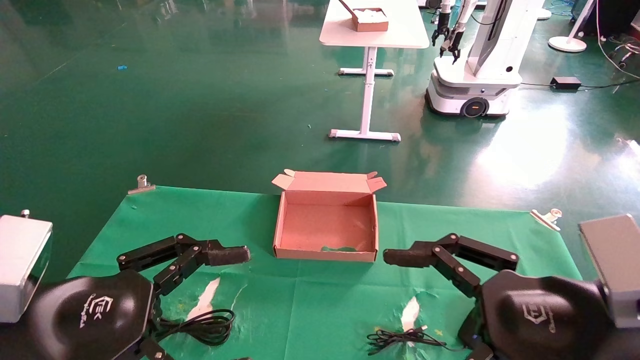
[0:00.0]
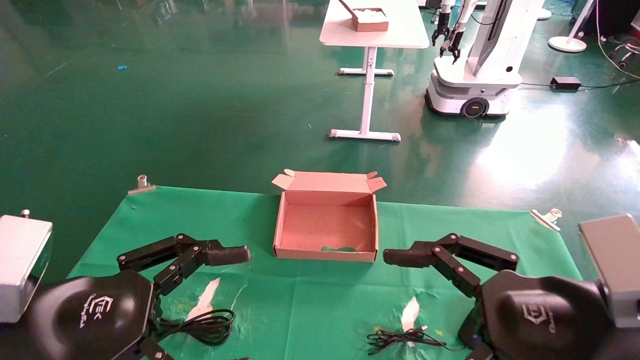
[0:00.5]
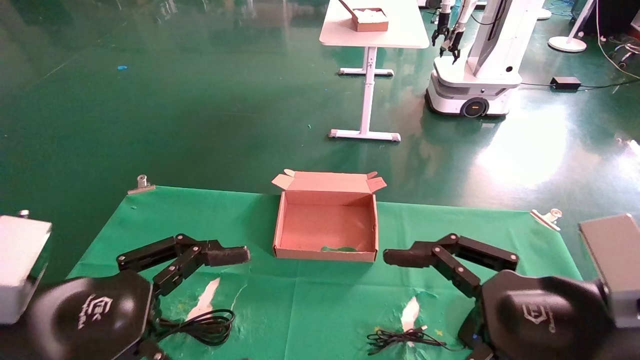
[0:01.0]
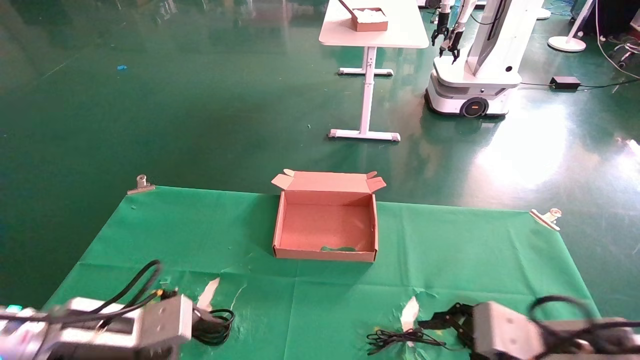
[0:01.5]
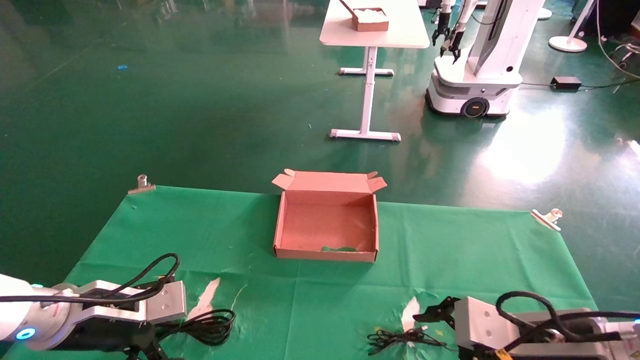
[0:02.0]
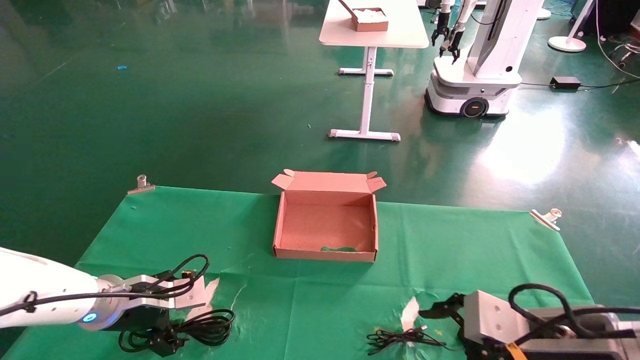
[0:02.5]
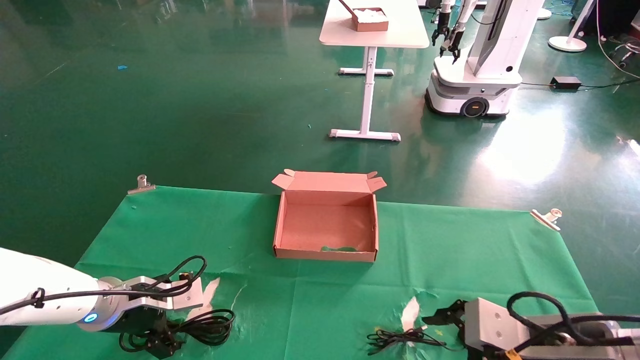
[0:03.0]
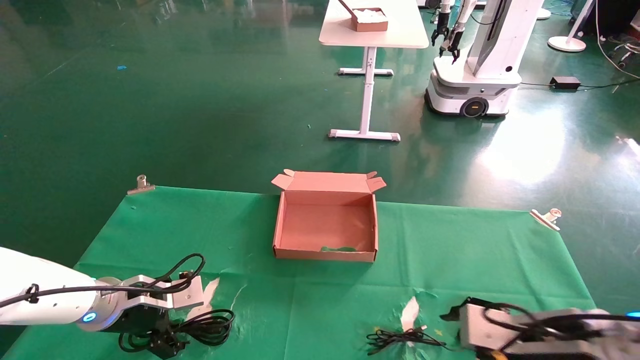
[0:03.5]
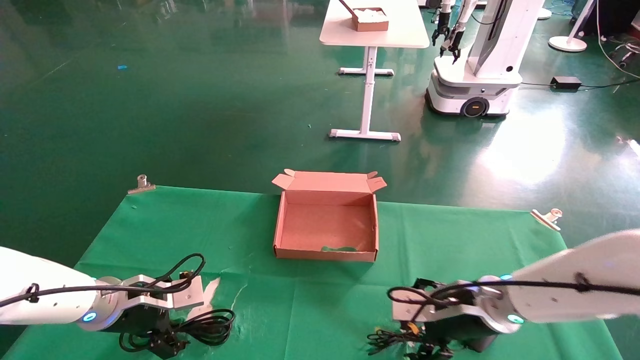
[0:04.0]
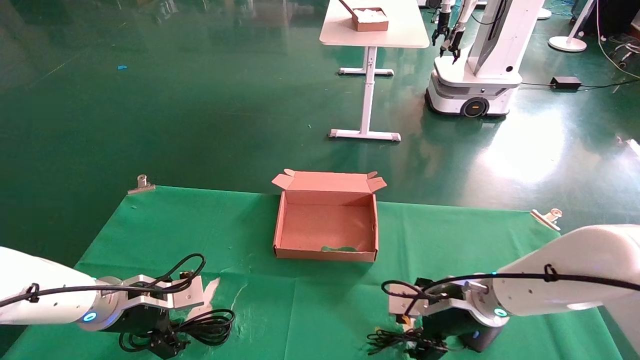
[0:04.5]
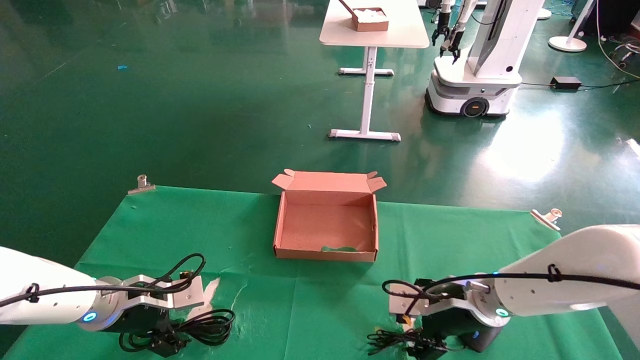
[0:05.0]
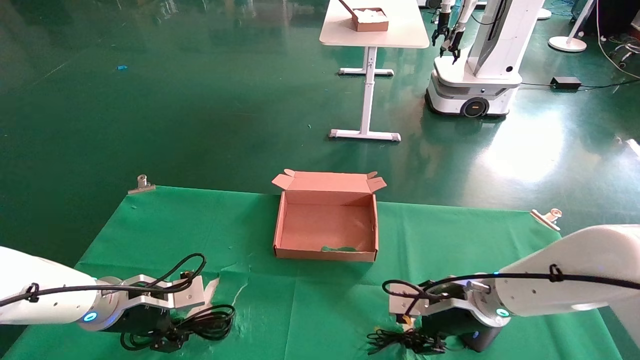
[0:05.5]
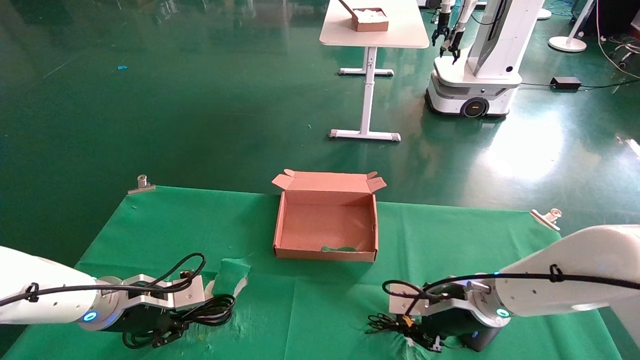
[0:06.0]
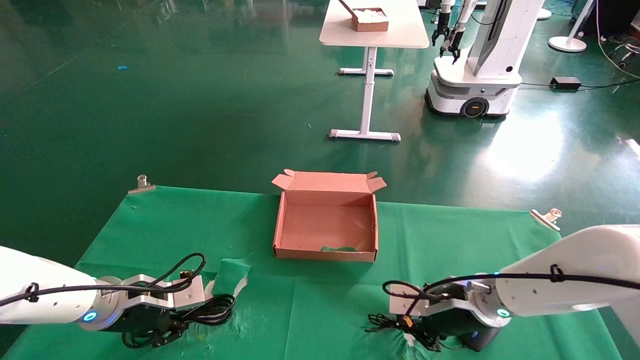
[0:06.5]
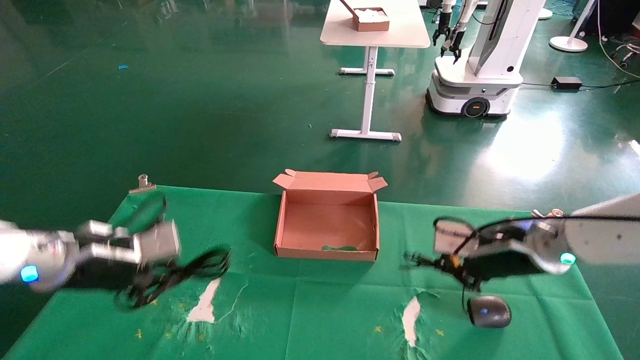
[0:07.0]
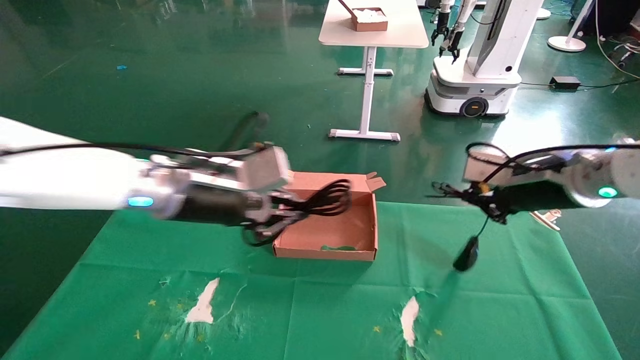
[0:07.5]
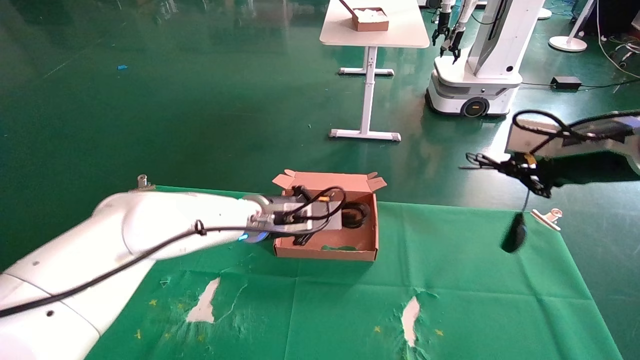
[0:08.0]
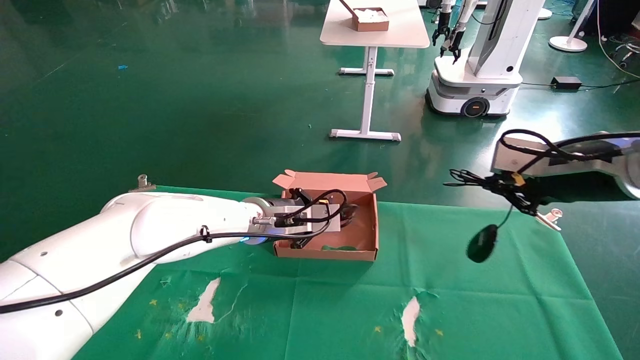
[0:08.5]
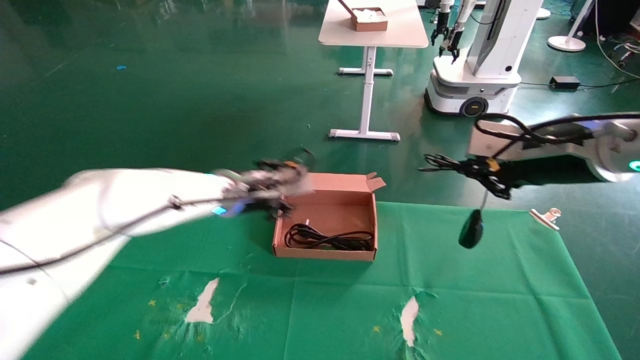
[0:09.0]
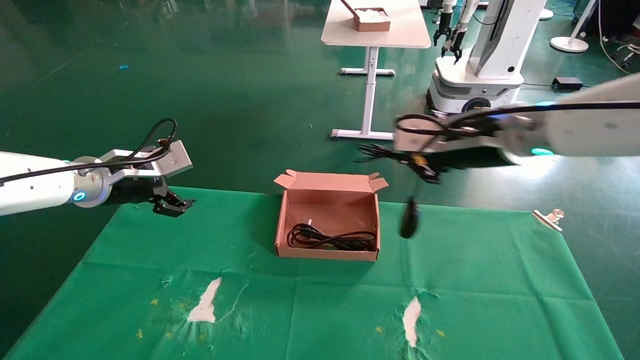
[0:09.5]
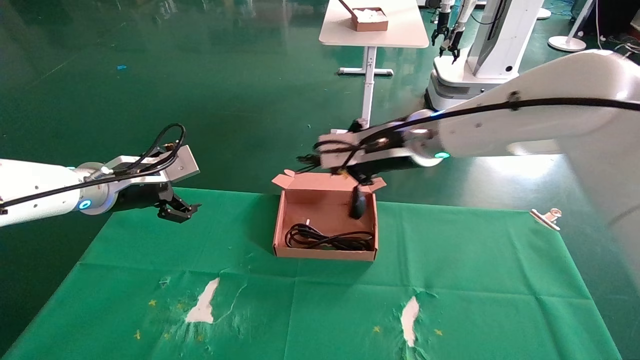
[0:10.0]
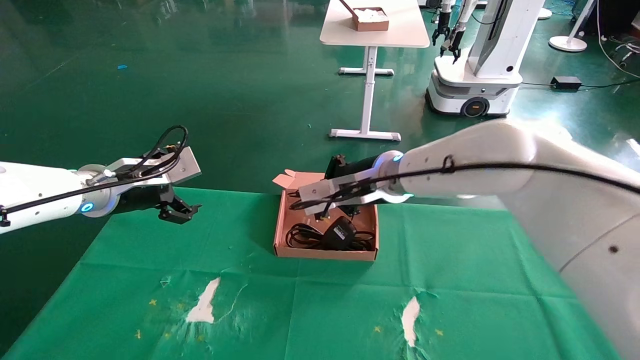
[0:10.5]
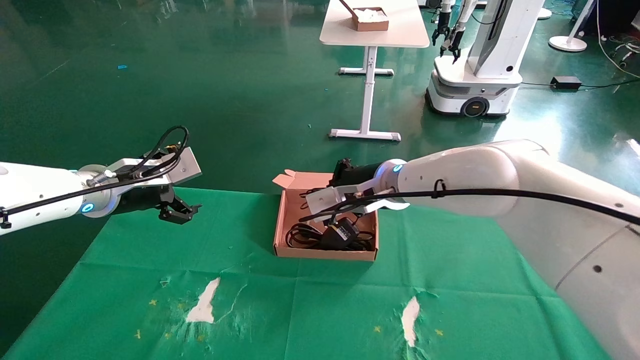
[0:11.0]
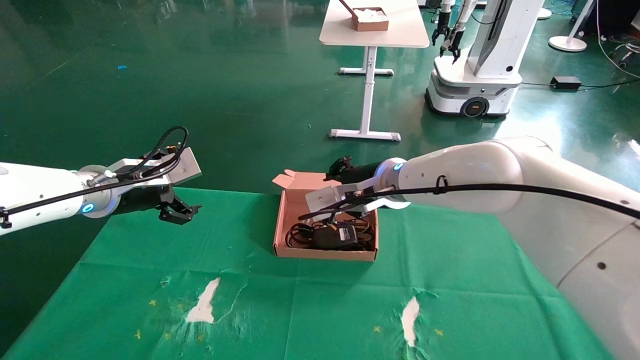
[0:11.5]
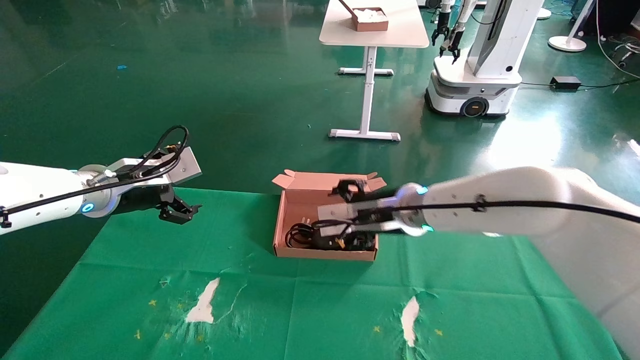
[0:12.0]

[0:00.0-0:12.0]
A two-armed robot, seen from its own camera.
Step, 0:01.5 to 0:07.0: Grab and lift both the mouse and power cord from the accessory packaging area at the same time.
0:00.0 to 0:02.0: The right gripper moves downward and forward, some 10 cm, while the left gripper moves forward and downward, some 15 cm.
0:02.0 to 0:04.0: The right gripper moves forward and to the left, some 15 cm. Meanwhile the left gripper moves forward, some 5 cm.
0:04.0 to 0:06.0: The left gripper closes up; the right gripper closes up.
0:06.0 to 0:08.0: The left gripper shifts about 25 cm to the right and upward. Meanwhile the right gripper heads upward and to the right, covering roughly 25 cm.
0:08.0 to 0:10.0: Both grippers travel together to the left, some 20 cm. The left gripper opens up.
0:10.0 to 0:12.0: The right gripper moves downward, some 10 cm, and opens.

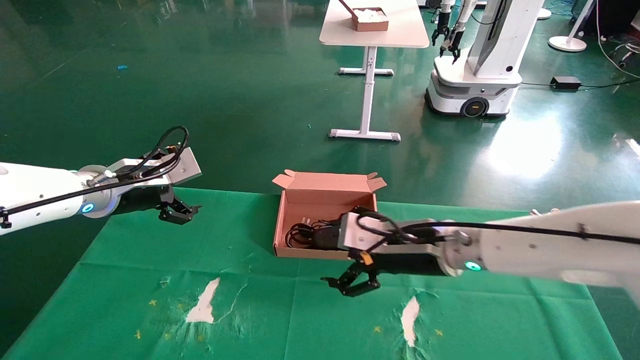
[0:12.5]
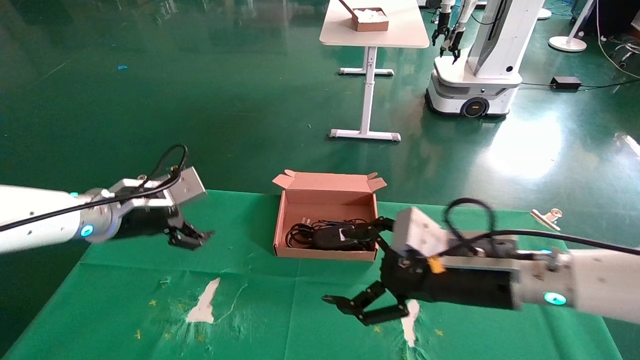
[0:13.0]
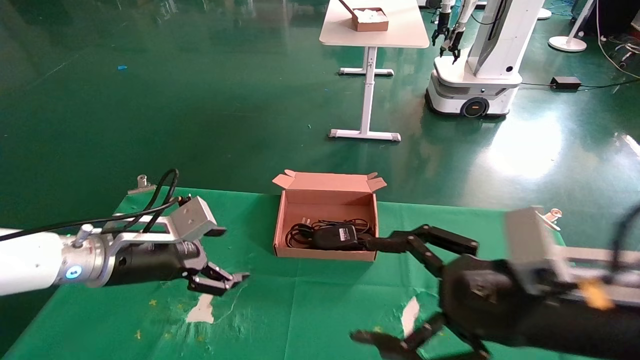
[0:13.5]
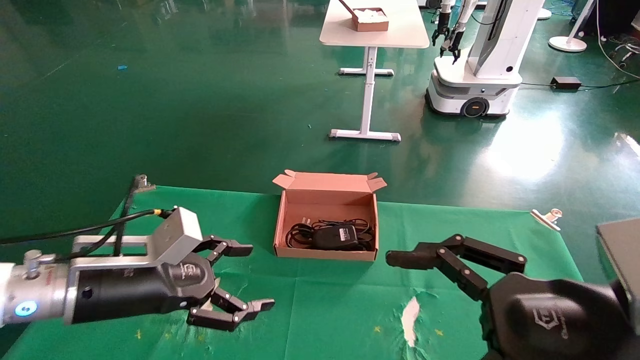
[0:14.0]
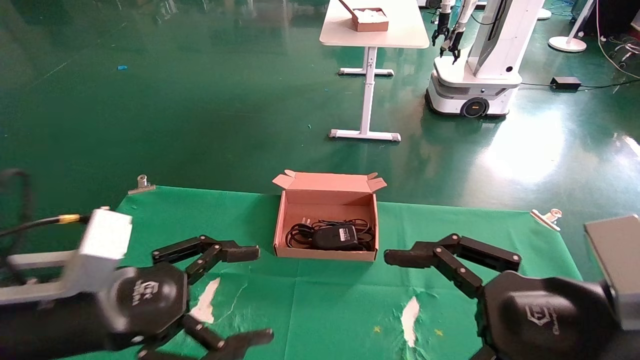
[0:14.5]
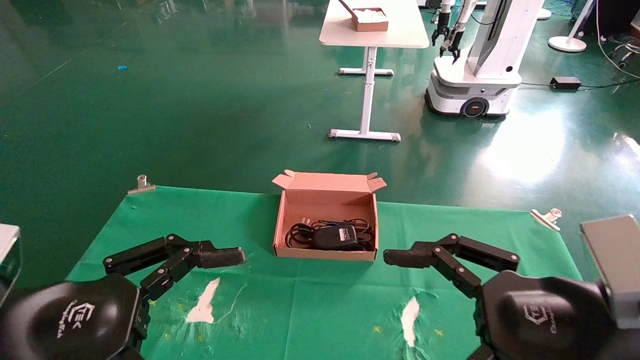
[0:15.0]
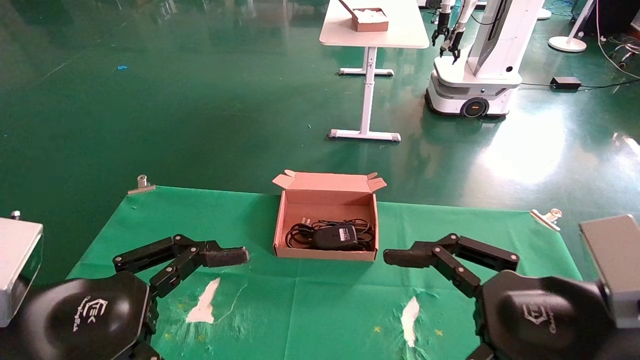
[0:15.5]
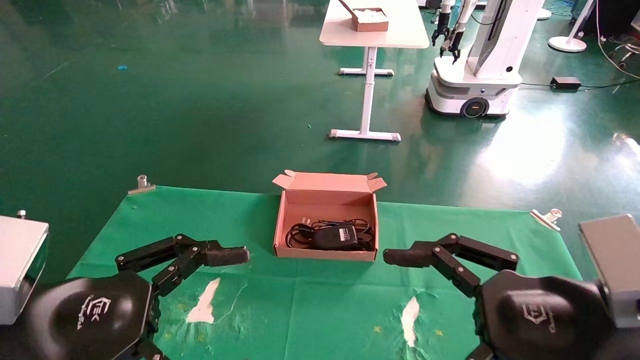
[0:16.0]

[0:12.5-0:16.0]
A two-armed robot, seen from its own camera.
0:12.5 to 0:14.5: The left gripper travels backward by roughly 20 cm. The right gripper travels backward and to the right by about 25 cm.
0:14.5 to 0:16.0: The grippers make only small movements.

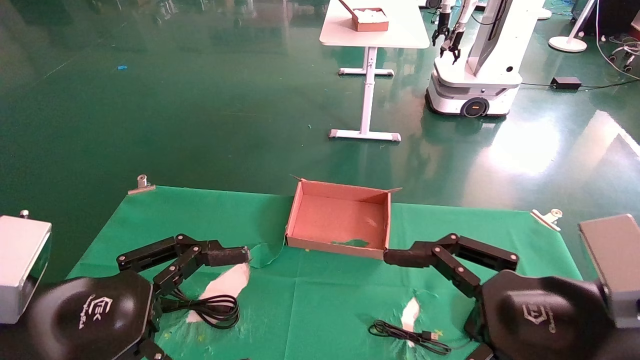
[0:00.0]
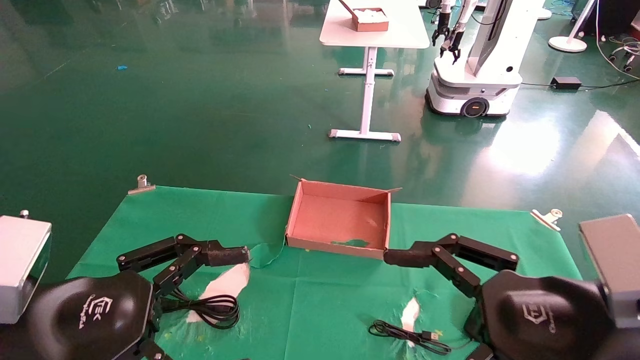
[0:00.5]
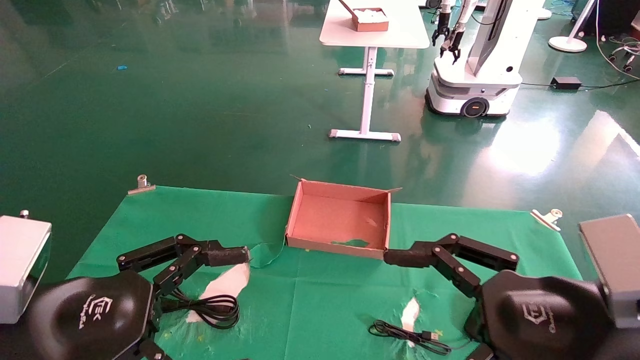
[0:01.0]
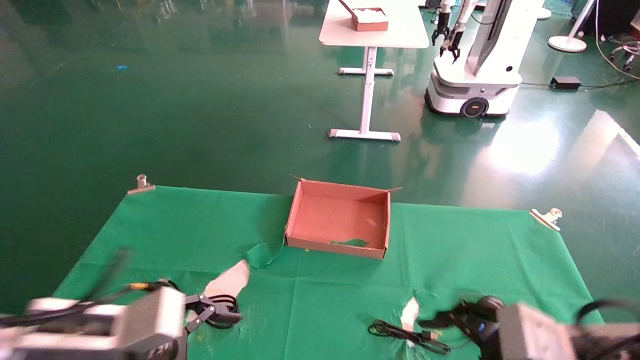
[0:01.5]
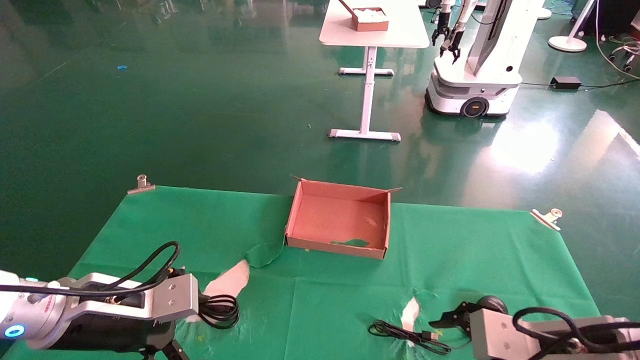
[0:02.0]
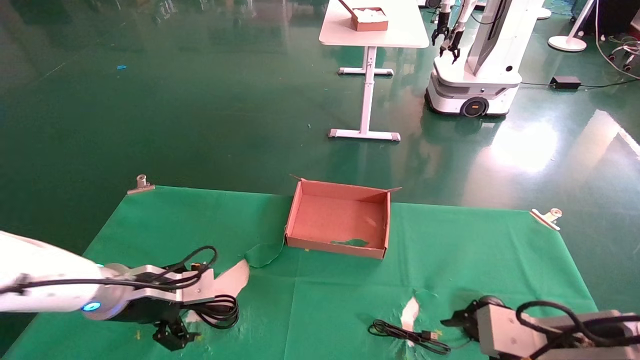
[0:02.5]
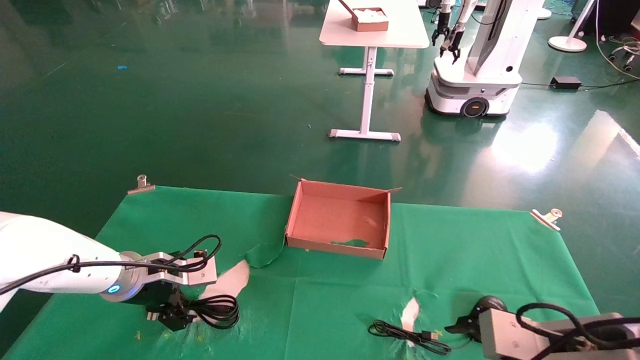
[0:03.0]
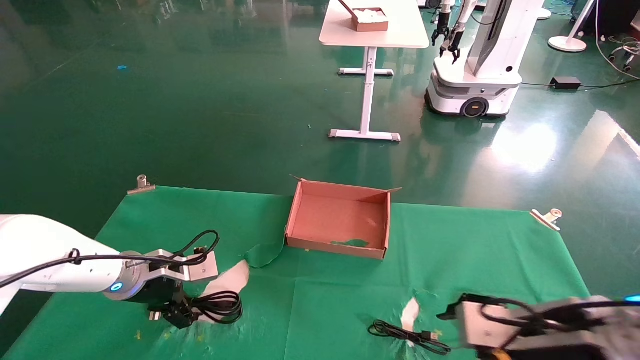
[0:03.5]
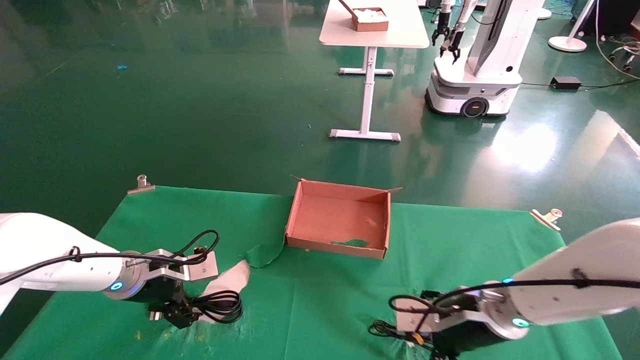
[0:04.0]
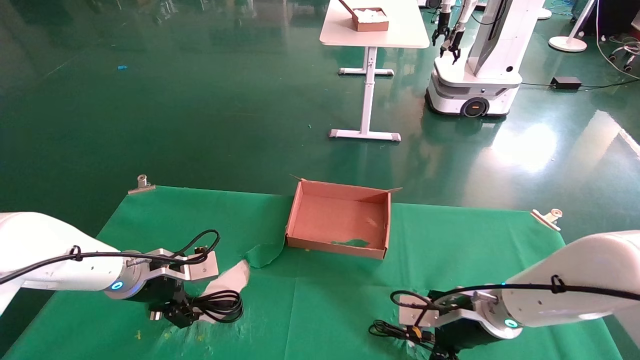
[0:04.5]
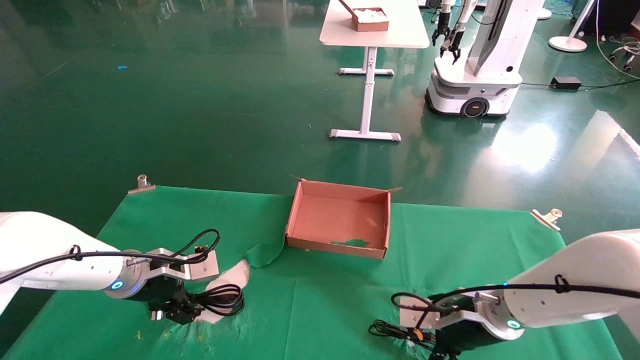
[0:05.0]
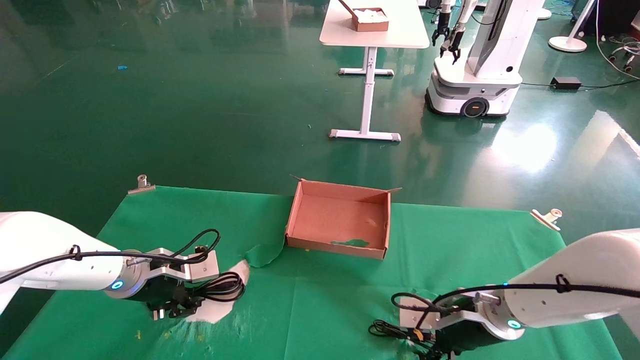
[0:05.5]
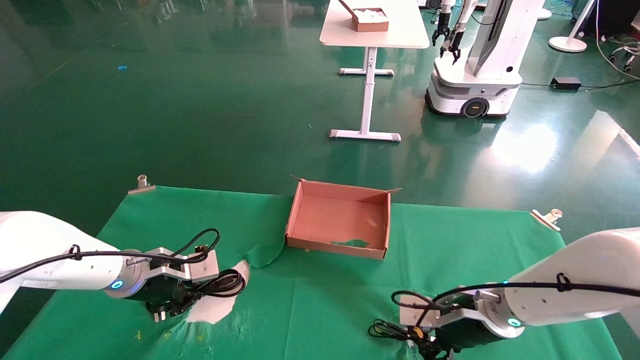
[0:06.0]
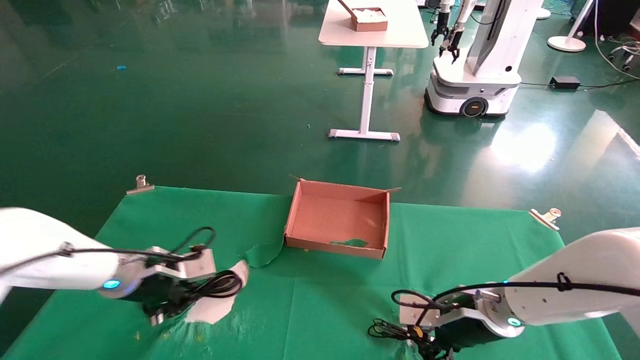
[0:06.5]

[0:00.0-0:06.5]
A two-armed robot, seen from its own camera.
Step, 0:02.0 to 0:05.5: Grab and lift both the mouse and power cord from the accessory packaging area at the same time.
0:00.0 to 0:02.0: The right gripper is displaced downward and forward by roughly 10 cm; the left gripper moves forward and downward, some 15 cm.
0:02.0 to 0:04.5: The left gripper moves forward, roughly 15 cm, while the right gripper heads forward and to the left, covering about 15 cm.
0:04.5 to 0:06.5: The left gripper closes, while the right gripper closes its fingers.
